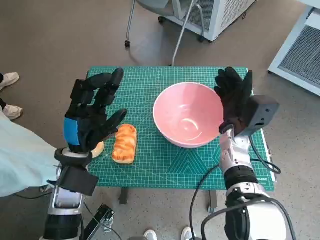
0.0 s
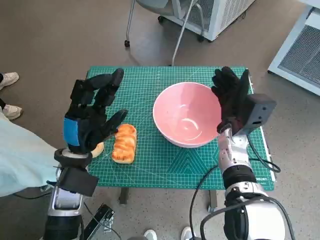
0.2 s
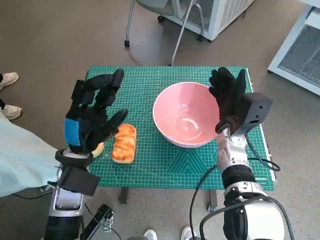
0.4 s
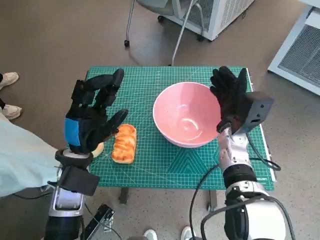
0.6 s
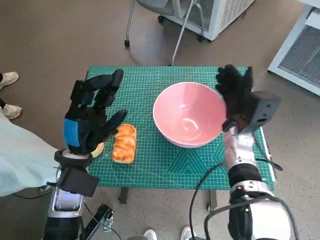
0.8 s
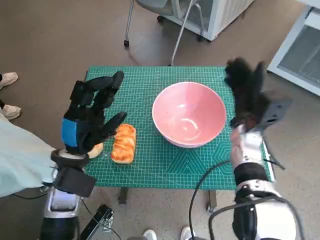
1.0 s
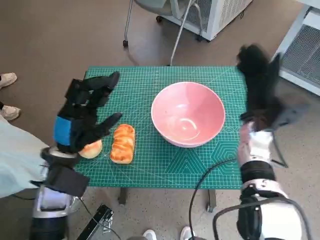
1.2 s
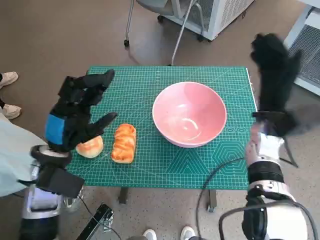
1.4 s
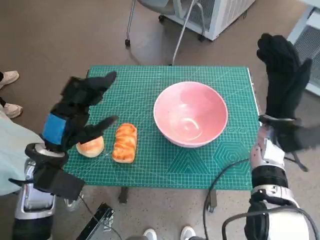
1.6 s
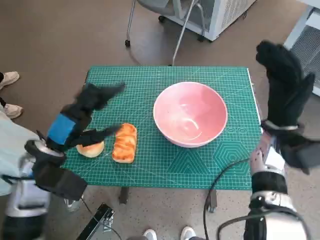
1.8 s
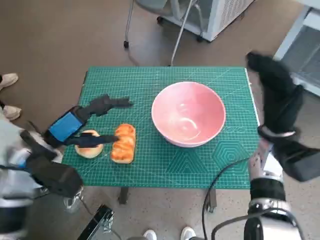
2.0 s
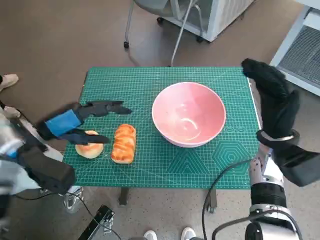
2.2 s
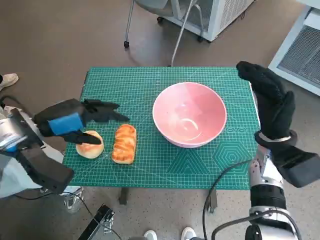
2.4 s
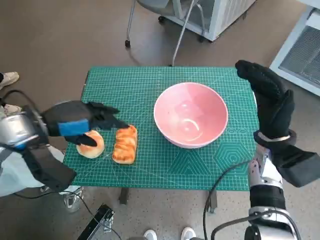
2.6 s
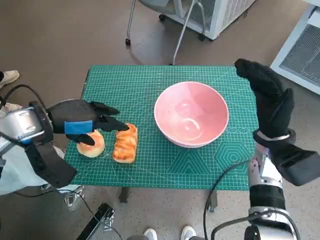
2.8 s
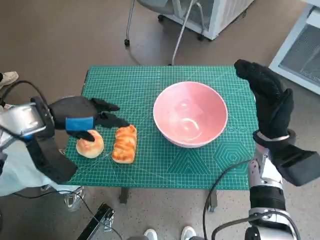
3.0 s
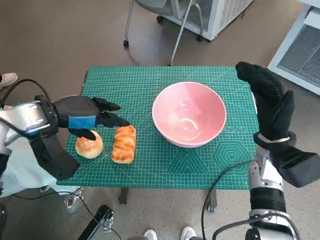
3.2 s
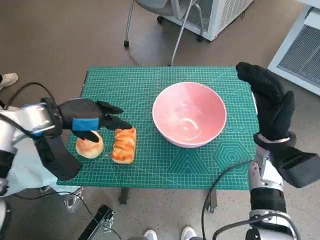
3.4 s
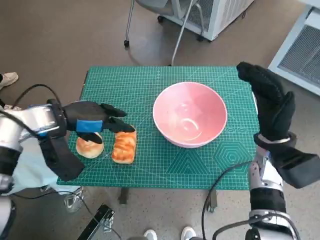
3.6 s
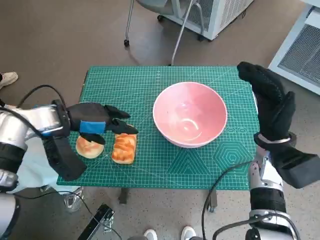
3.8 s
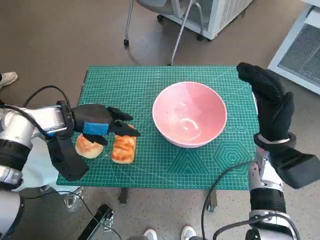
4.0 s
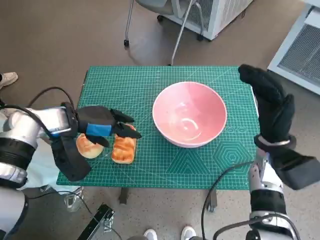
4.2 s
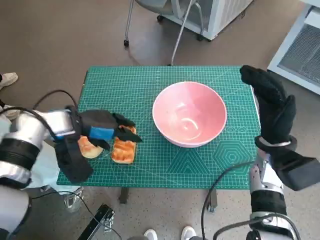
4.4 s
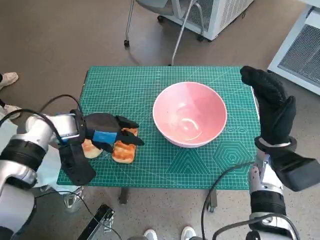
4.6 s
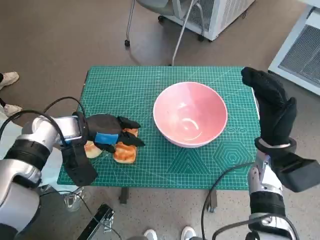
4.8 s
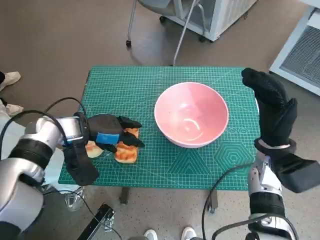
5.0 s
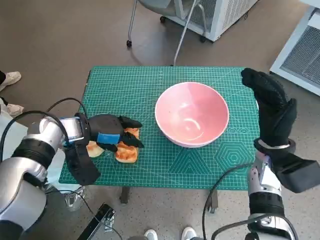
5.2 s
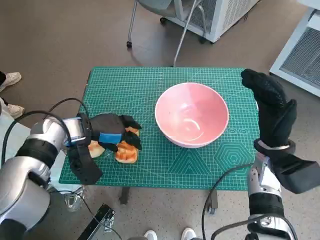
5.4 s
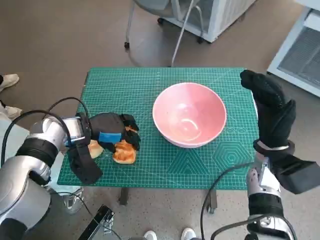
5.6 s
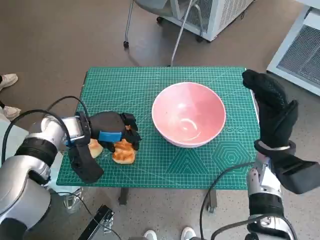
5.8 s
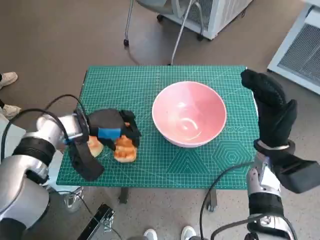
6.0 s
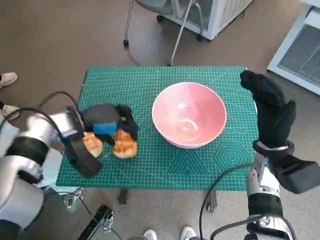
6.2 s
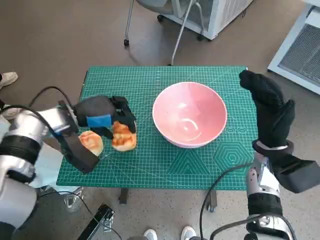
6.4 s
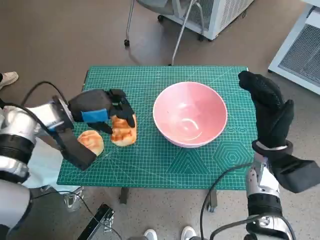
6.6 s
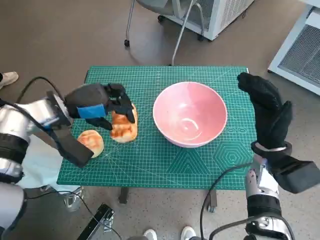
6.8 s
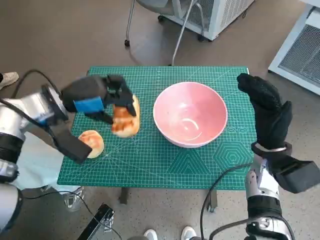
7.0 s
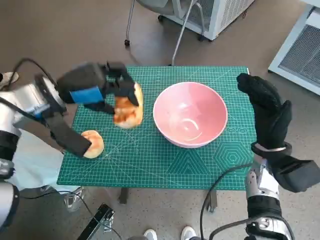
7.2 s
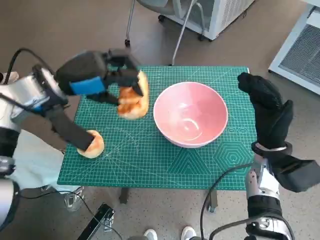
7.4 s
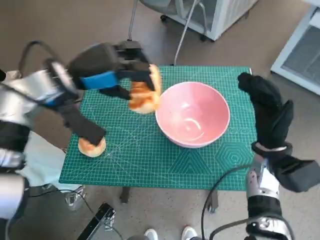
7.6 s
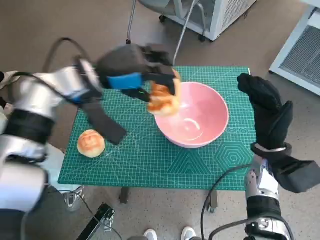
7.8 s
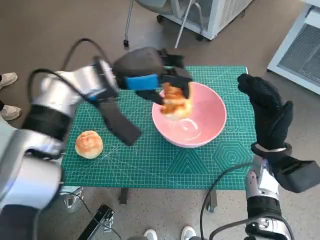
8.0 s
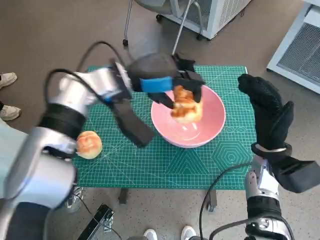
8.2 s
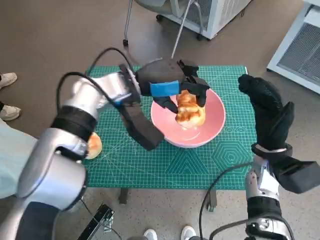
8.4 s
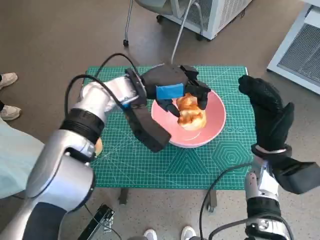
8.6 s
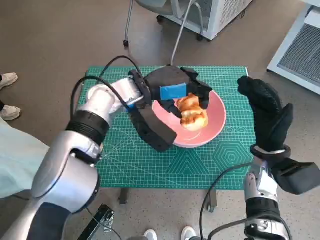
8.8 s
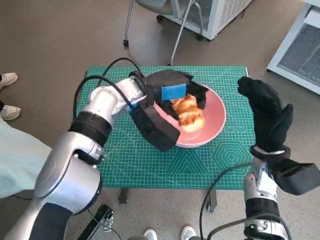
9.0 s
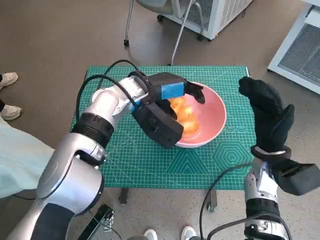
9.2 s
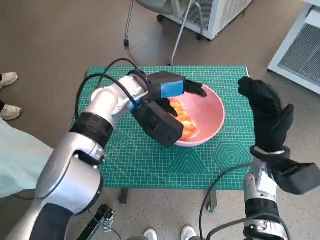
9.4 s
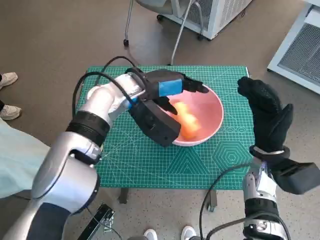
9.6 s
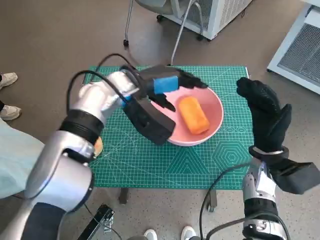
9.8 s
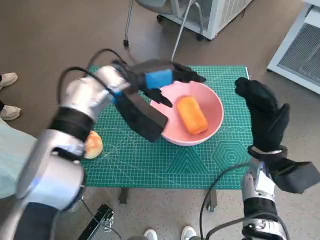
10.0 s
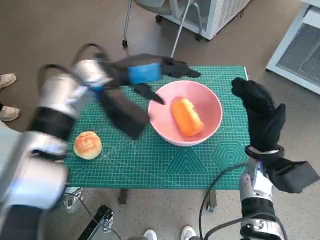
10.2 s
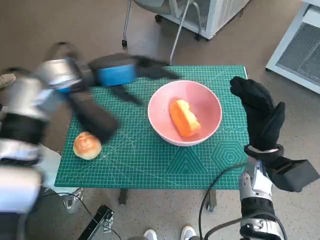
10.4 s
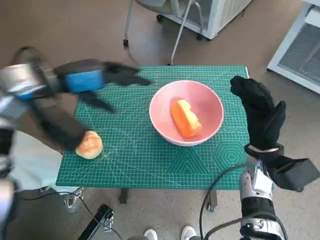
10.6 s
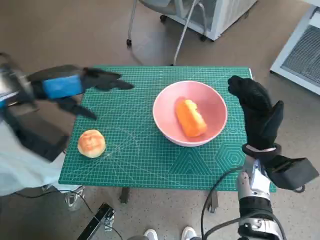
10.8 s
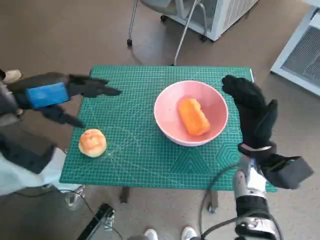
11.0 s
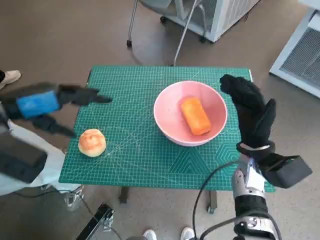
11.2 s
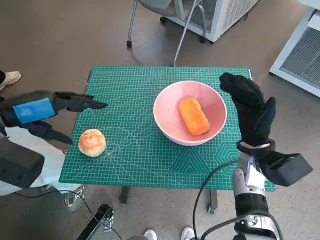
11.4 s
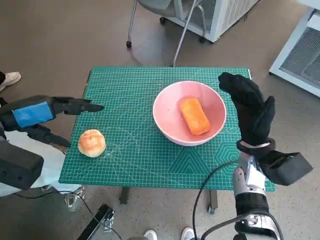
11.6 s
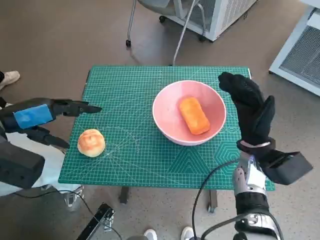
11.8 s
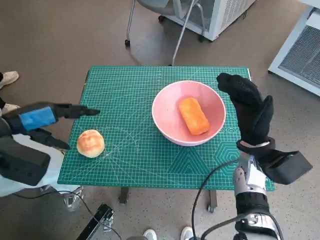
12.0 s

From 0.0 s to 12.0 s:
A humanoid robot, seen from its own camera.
Task of the whole recording: Push the bowl to the center of the table and put the bread into the bowl.
Step, from 1.2 s to 5.8 s: Grasp the long bread with left hand.
Step, from 6.0 s to 10.0 s: Place the long bread in pink bowl with left hand.
From 0.0 s to 1.6 s: The right hand heads to the right, covering some 5 cm.
From 1.6 s to 3.0 s: The left hand heads upward and forward, covering roughly 10 cm.
From 3.0 s to 4.4 s: The left hand changes place by about 5 cm.
From 4.4 s to 6.0 s: The hands stay close to where they were, moving slightly.
From 6.0 s to 7.6 s: The left hand moves upward, about 10 cm.
From 7.6 s to 9.0 s: The left hand travels to the right by roughly 10 cm.
From 9.0 s to 10.4 s: The left hand heads to the left and upward, covering roughly 10 cm.
From 10.4 s to 12.0 s: The left hand shifts approximately 15 cm to the left and backward.

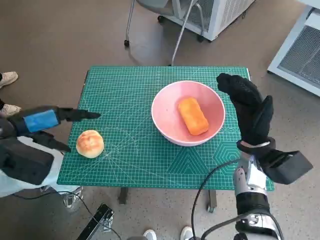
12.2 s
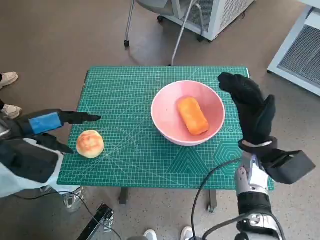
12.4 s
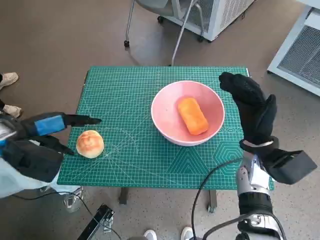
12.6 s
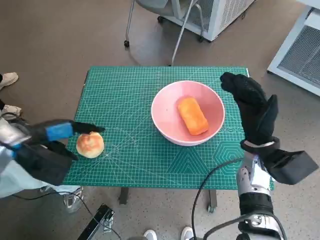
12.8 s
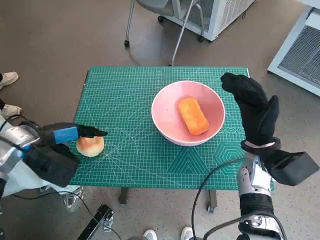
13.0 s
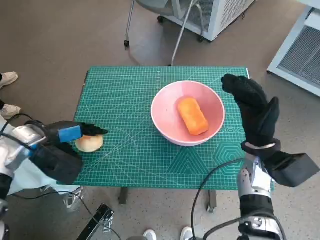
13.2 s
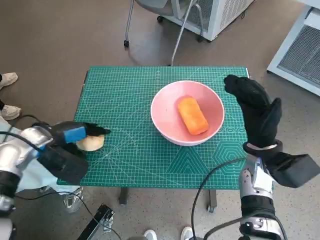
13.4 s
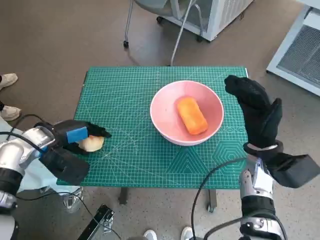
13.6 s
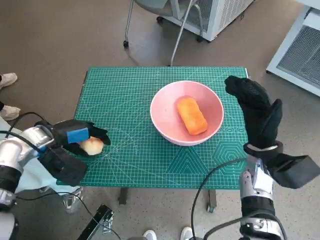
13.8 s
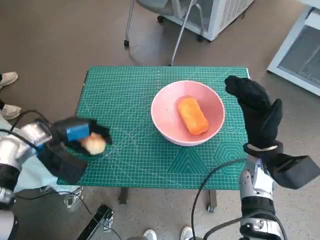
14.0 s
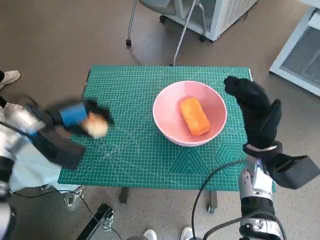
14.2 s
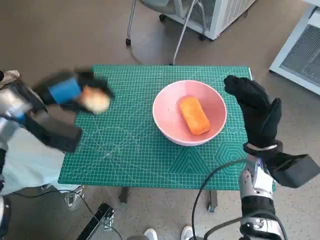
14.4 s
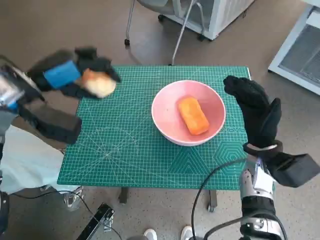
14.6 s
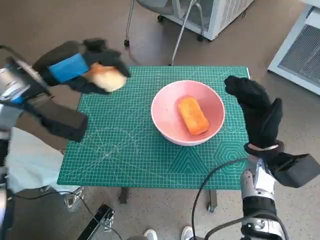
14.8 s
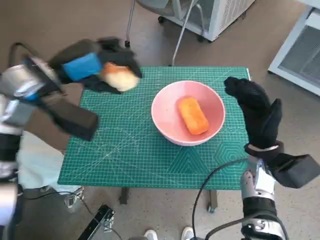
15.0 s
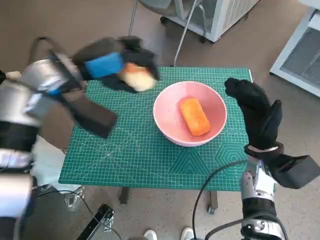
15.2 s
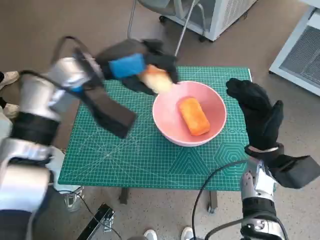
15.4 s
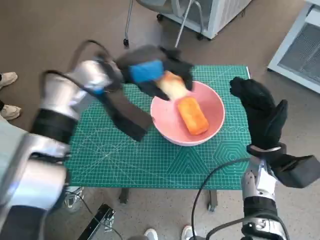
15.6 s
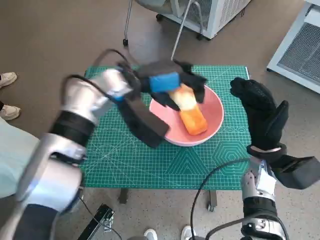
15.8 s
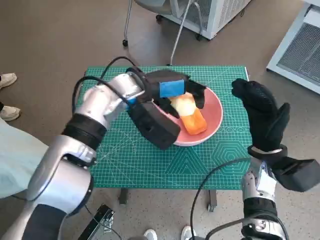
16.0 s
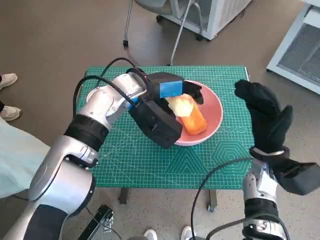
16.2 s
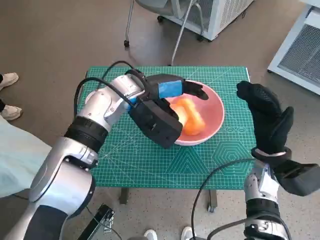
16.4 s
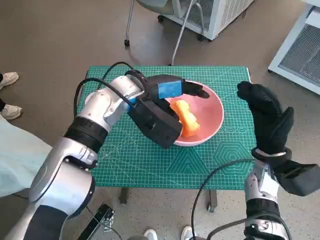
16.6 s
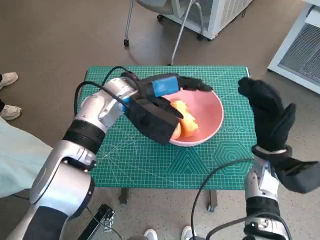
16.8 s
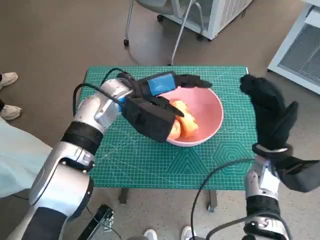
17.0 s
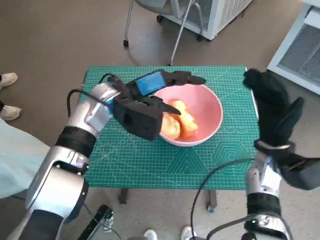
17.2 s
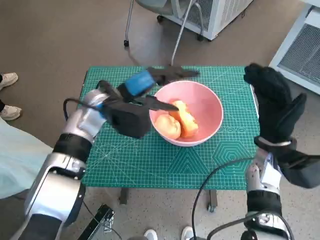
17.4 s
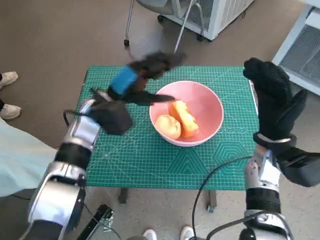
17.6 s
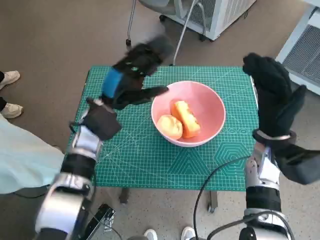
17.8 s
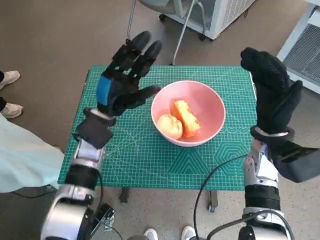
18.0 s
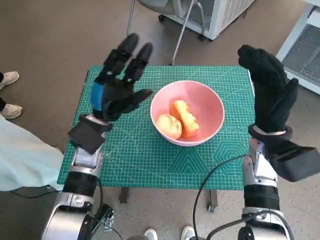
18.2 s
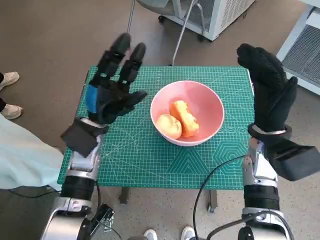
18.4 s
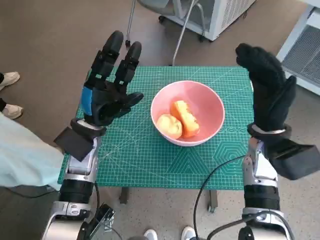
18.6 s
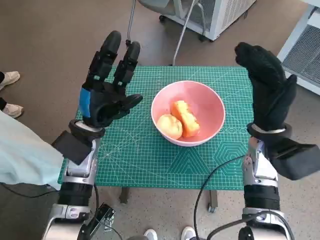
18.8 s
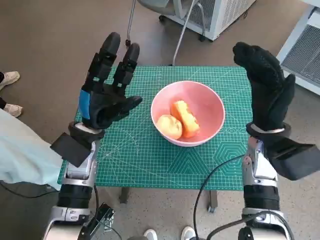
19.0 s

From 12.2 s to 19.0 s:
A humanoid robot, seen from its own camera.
Task of the whole recording: Push the bowl to the center of the table and put the bread into the bowl.
Step, from 13.8 s to 17.2 s: Place the round bread in pink bowl with left hand.
From 12.2 s to 13.6 s: The left hand heads downward, covering roughly 10 cm.
From 13.6 s to 15.0 s: The left hand goes roughly 15 cm upward and to the right.
From 15.0 s to 16.2 s: The left hand goes roughly 15 cm to the right.
From 16.2 s to 17.6 s: The left hand heads to the left, covering roughly 5 cm.
From 17.6 s to 19.0 s: The left hand travels backward by approximately 5 cm.

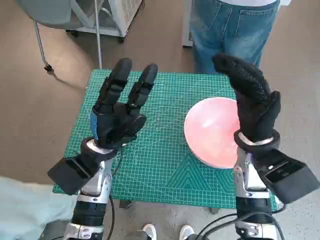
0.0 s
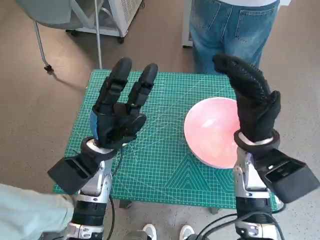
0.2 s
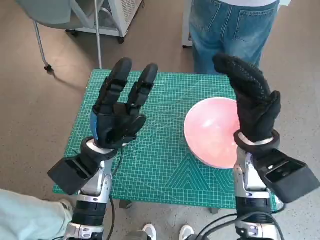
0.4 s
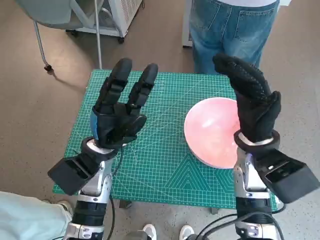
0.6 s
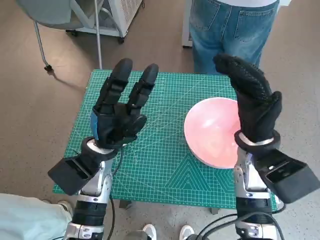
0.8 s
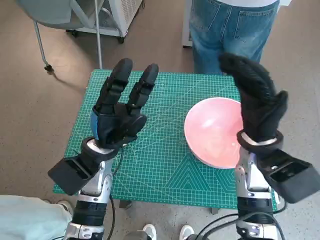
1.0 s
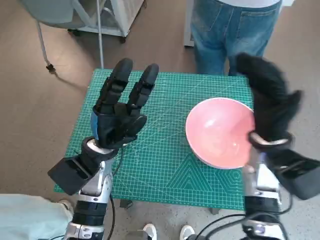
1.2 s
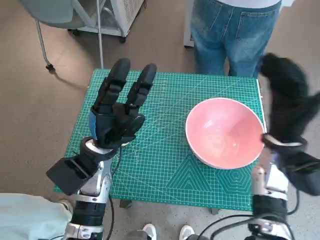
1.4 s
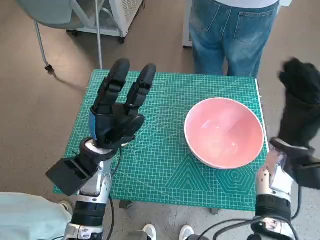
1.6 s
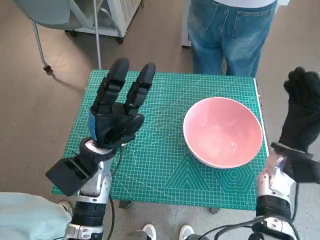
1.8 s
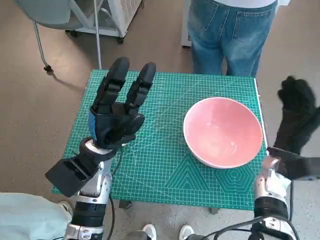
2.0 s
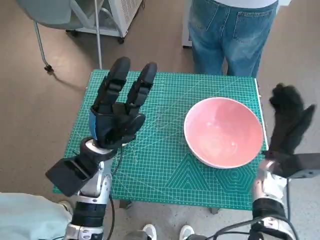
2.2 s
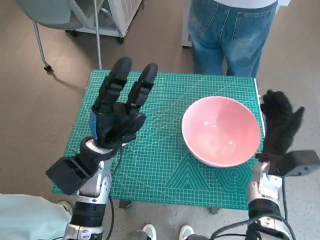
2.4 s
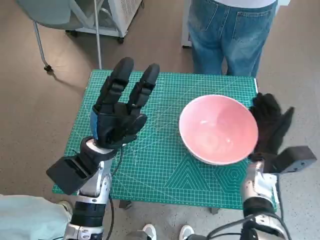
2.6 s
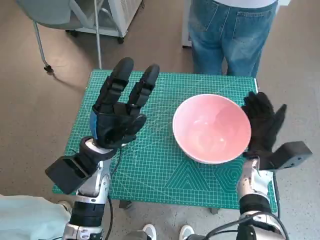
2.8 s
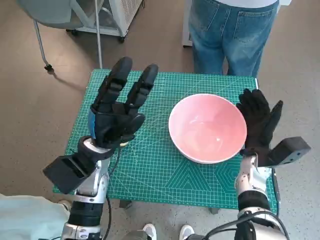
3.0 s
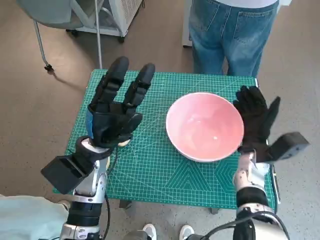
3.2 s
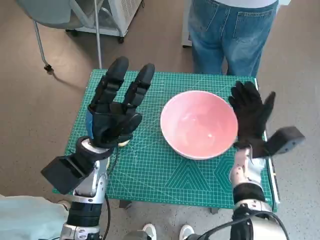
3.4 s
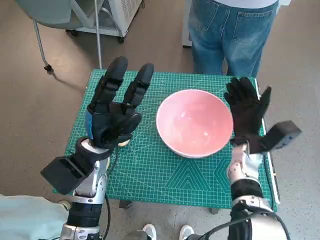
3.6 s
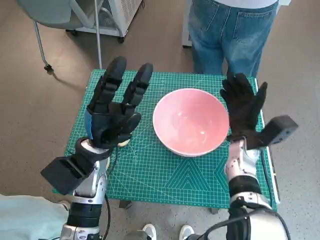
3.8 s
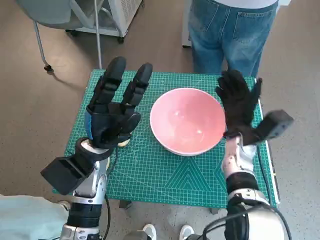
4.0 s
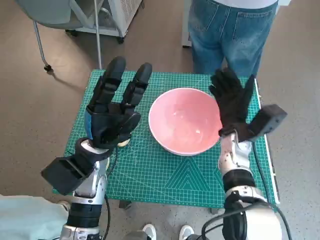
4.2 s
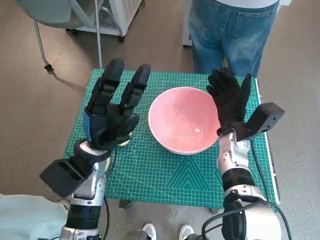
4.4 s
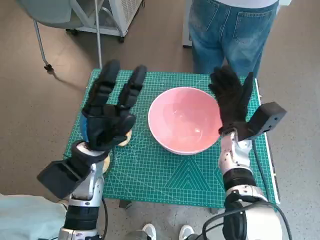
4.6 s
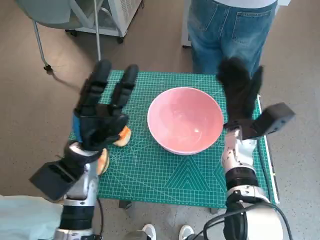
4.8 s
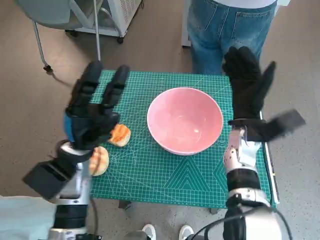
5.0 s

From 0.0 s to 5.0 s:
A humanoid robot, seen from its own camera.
Task of the whole recording: Push the bowl to the center of the table and put the bread into the bowl.
Step, from 0.0 s to 4.8 s: Move the pink bowl to the center of table with right hand.
From 1.6 s to 3.4 s: The right hand travels downward by some 5 cm.
From 3.4 s to 5.0 s: The right hand heads upward, covering about 5 cm.
